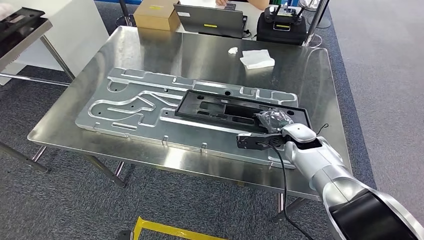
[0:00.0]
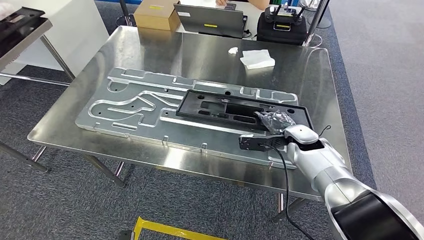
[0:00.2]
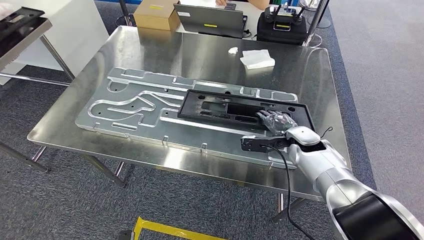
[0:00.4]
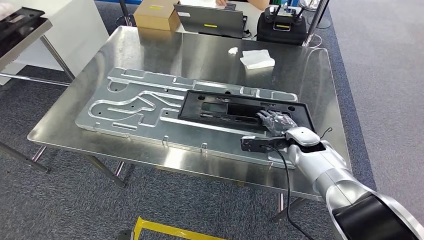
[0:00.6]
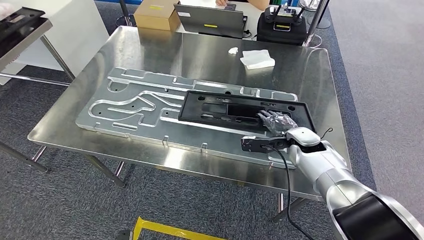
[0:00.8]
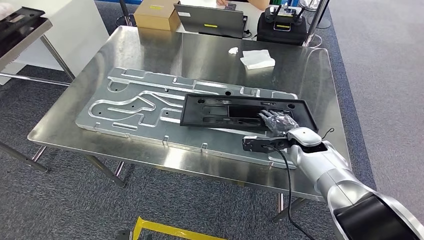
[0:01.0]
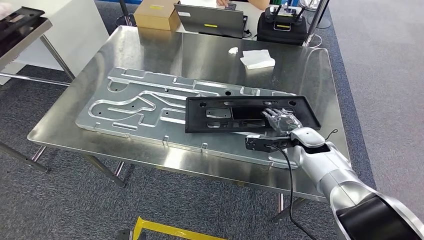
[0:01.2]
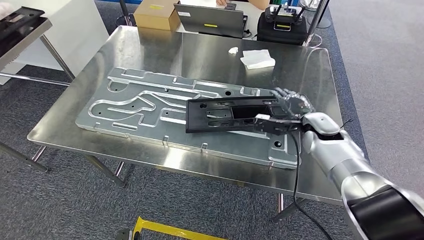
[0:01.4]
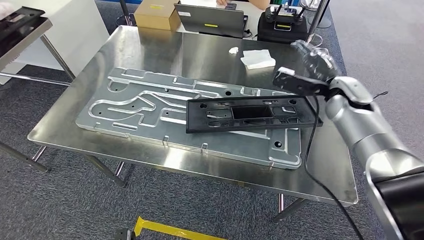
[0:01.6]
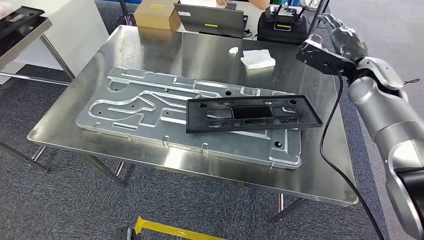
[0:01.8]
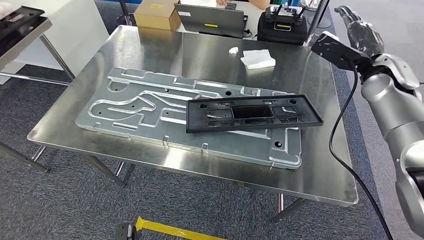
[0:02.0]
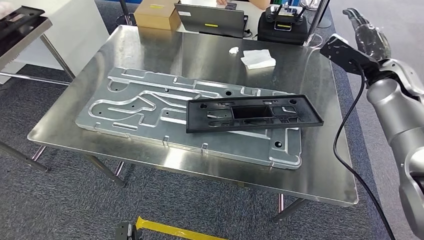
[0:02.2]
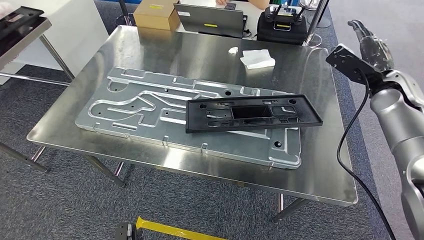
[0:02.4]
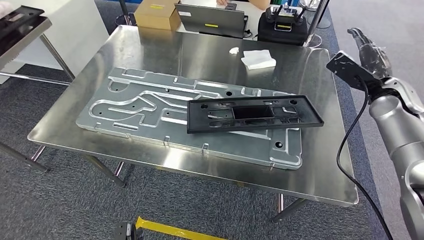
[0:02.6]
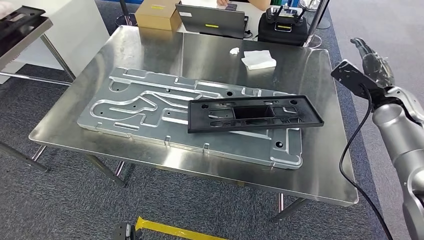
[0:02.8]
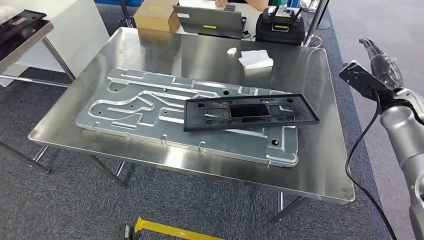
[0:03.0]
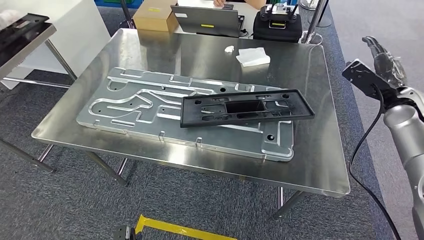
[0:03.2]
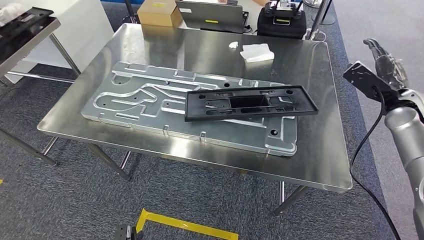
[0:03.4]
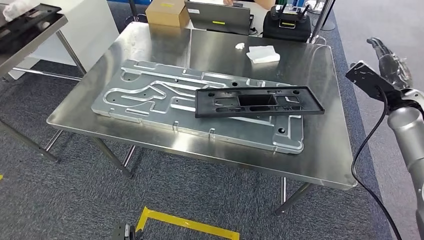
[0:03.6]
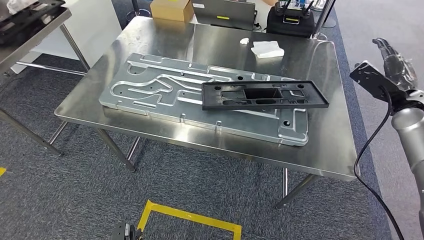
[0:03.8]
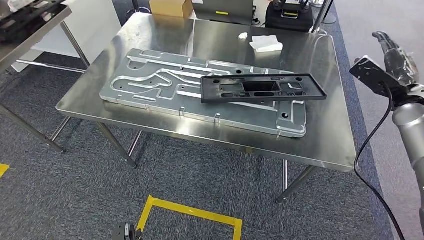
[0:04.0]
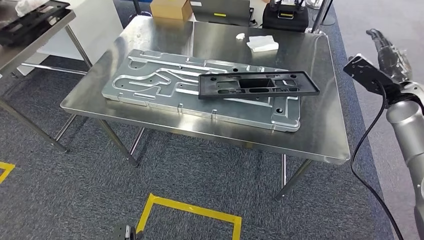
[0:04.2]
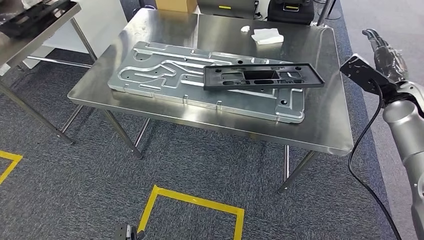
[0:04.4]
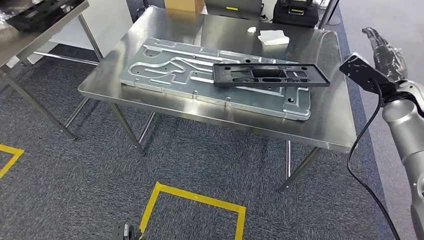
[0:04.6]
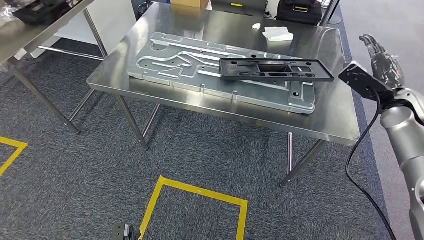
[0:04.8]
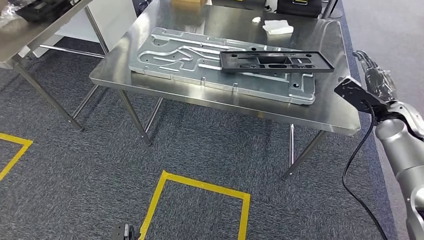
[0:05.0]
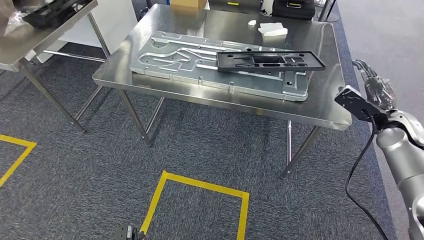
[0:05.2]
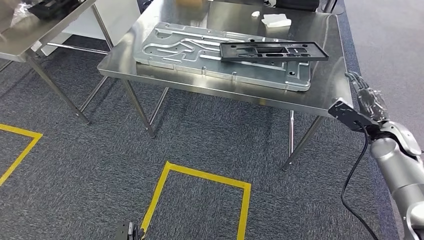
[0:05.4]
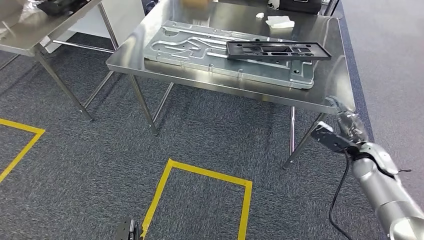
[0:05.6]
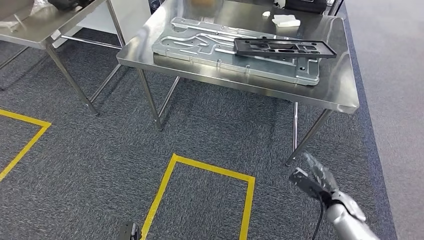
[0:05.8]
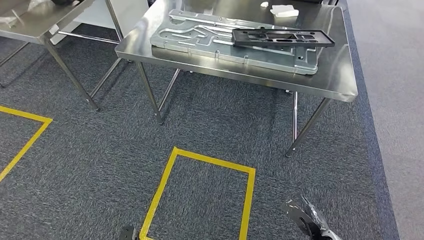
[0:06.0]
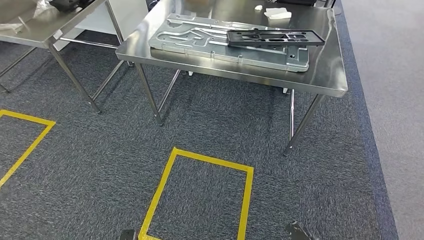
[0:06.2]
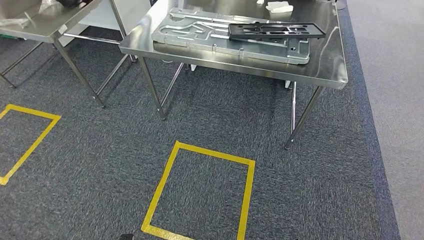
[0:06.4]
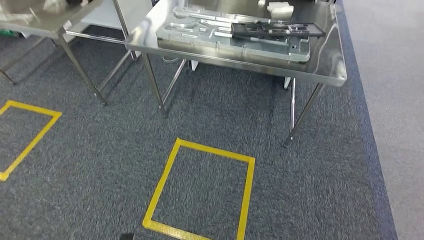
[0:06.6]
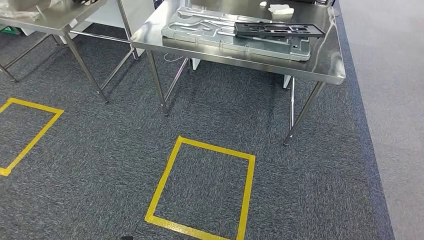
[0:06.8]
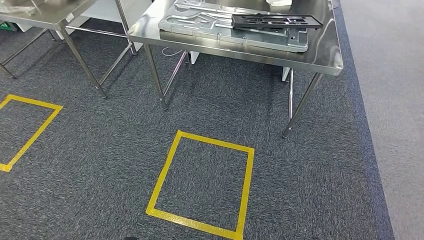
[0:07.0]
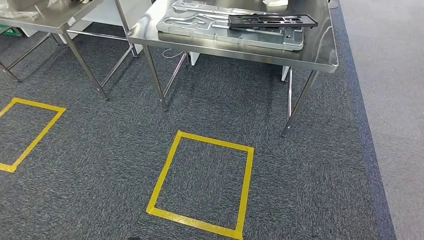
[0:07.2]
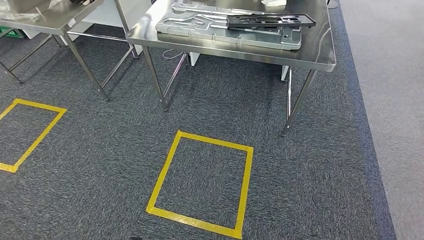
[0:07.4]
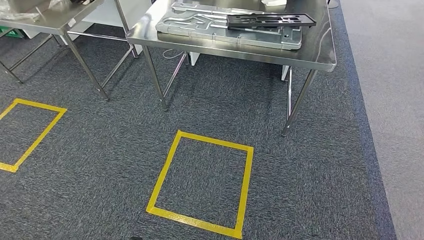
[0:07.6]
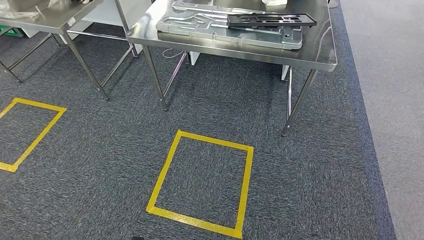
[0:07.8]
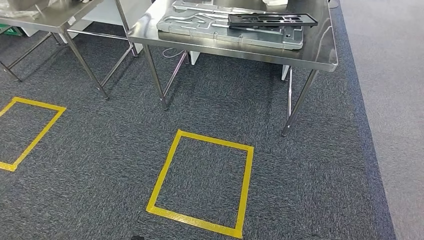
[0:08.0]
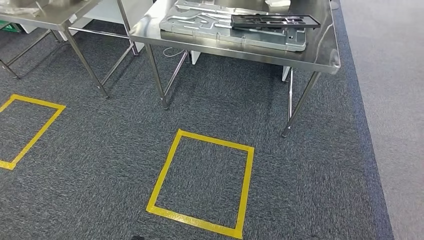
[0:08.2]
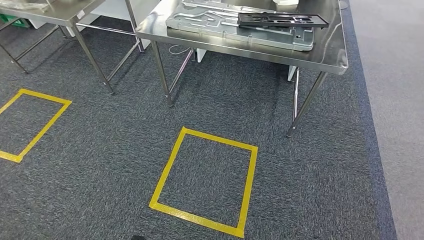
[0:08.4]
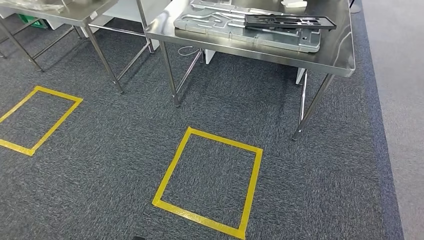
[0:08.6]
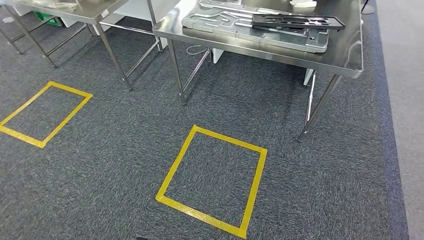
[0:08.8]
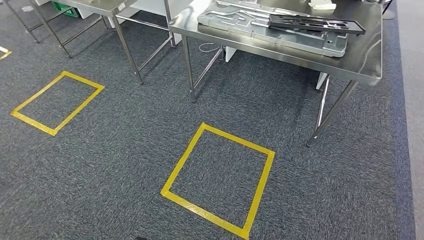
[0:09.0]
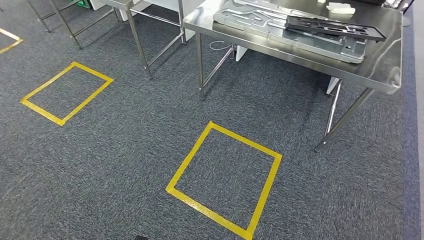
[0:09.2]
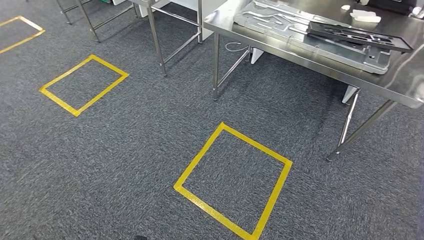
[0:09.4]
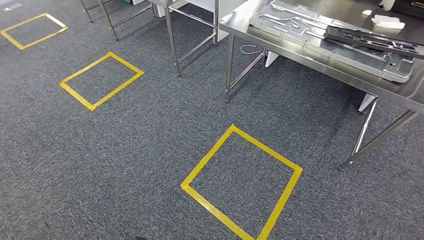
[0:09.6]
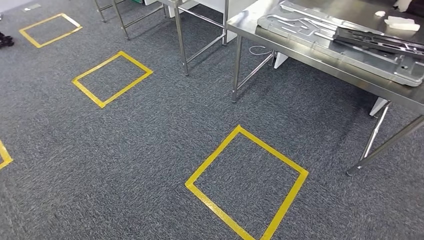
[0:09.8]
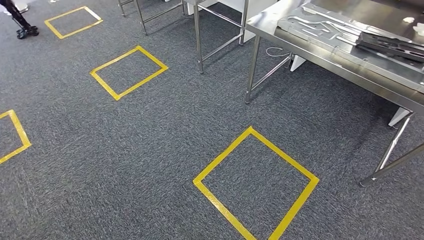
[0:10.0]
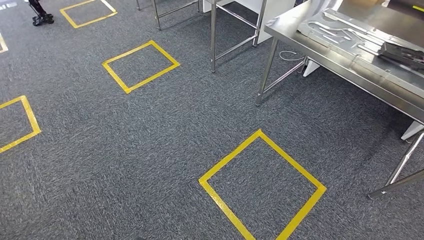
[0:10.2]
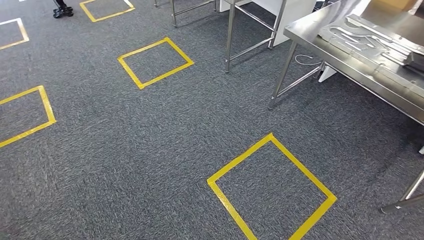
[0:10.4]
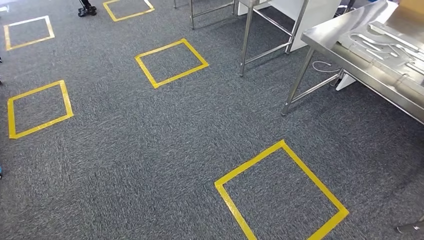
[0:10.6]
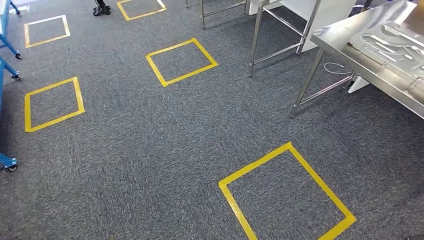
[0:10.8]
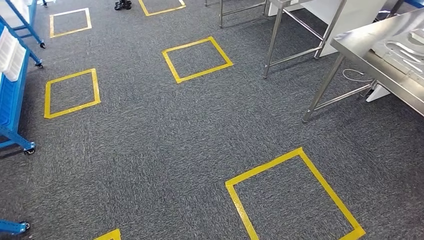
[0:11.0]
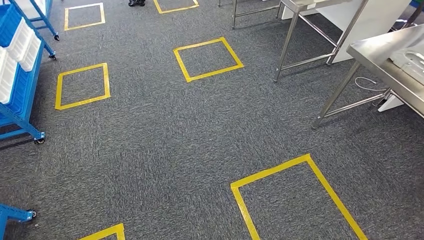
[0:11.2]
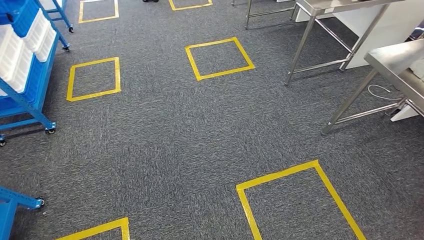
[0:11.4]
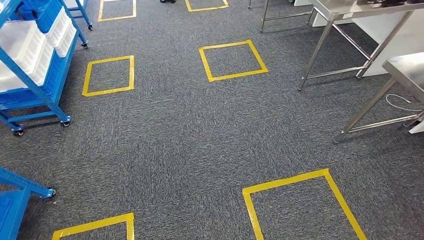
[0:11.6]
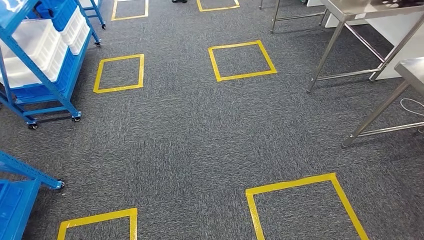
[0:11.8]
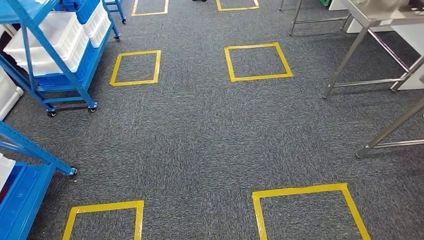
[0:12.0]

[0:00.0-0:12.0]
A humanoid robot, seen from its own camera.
Step, 0:00.0 to 0:02.4: Insert the large material into the corresponding slot on the workbench.
0:00.0 to 0:01.6: The right hand is displaced upward and to the right by about 15 cm.

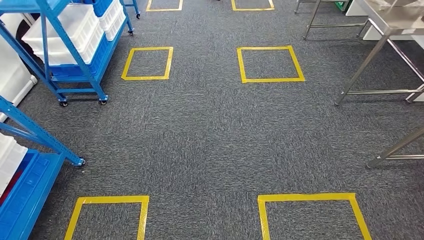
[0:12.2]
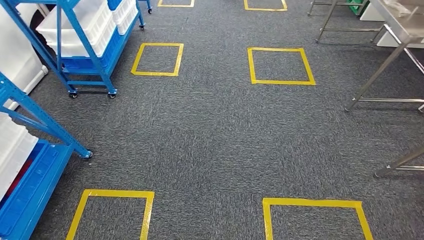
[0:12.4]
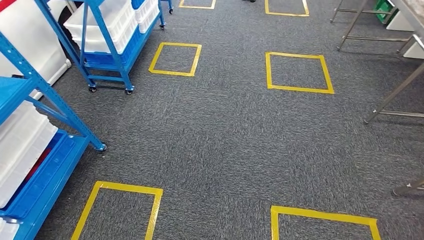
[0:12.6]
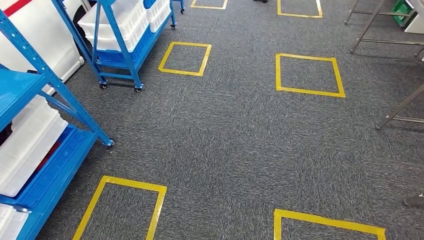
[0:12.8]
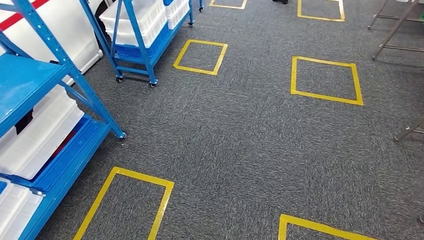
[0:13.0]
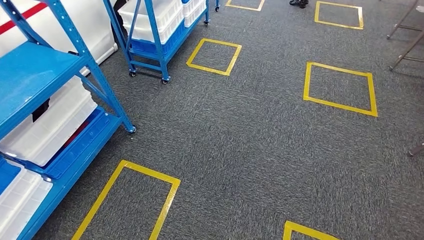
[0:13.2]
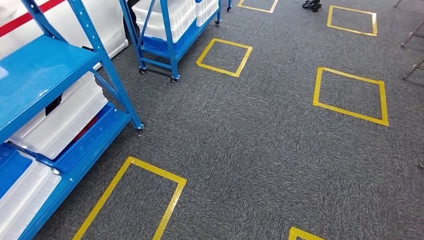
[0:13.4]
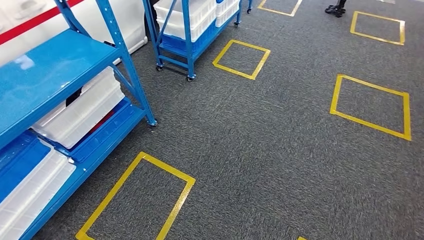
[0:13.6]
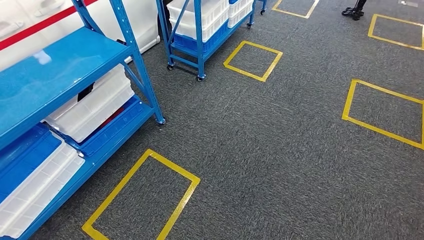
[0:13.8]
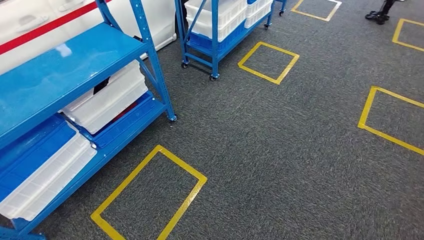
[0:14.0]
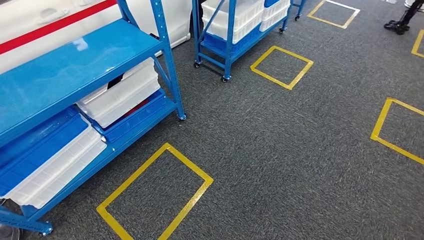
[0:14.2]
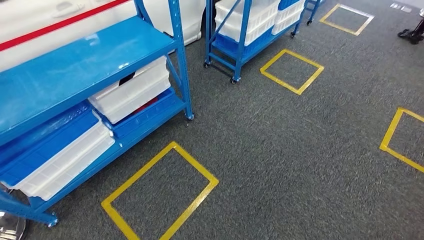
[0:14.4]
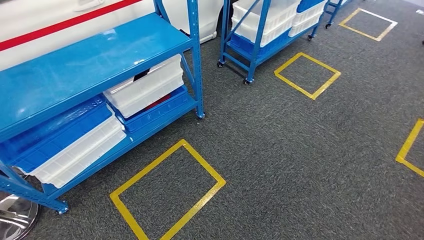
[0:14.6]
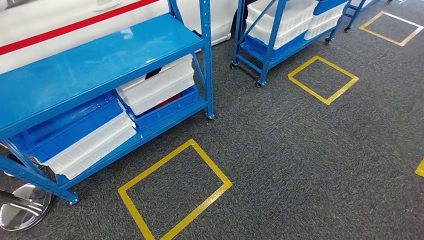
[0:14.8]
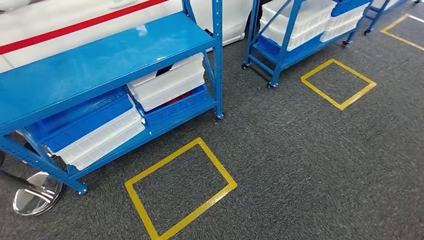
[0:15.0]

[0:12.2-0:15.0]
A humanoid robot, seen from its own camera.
Step, 0:12.2 to 0:14.8: Move to the initial position of the shelf.
